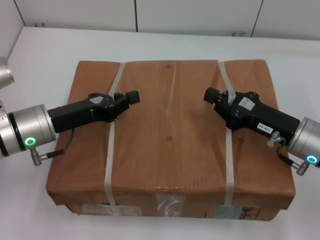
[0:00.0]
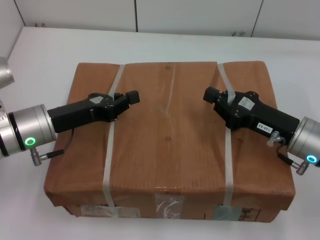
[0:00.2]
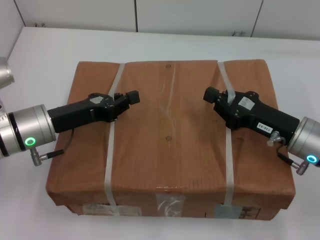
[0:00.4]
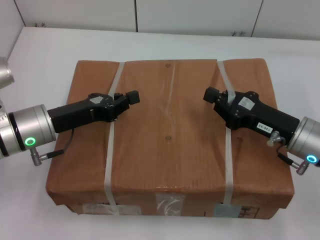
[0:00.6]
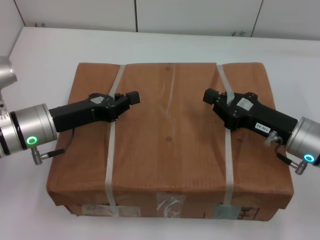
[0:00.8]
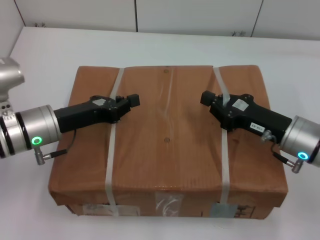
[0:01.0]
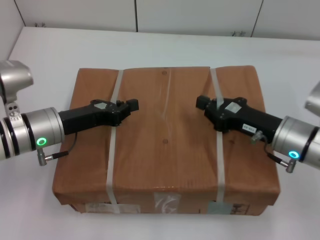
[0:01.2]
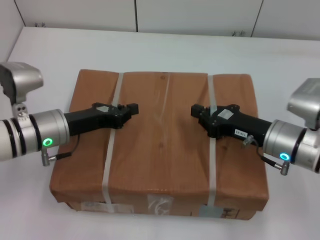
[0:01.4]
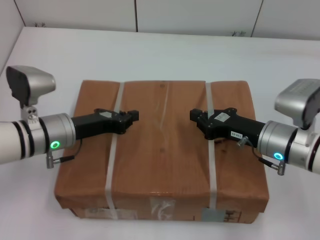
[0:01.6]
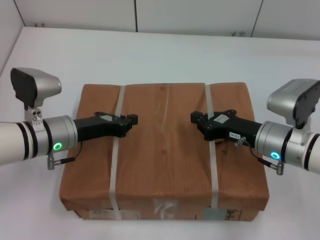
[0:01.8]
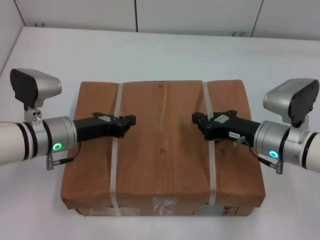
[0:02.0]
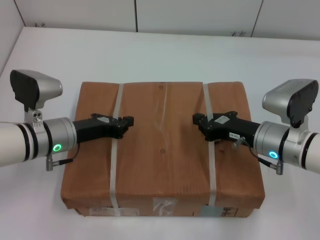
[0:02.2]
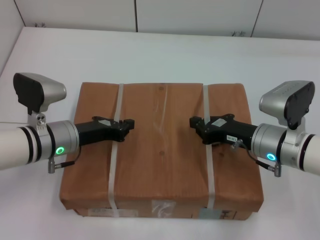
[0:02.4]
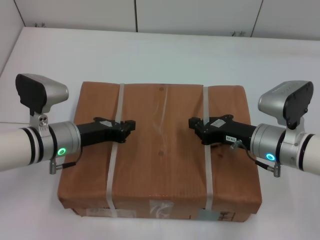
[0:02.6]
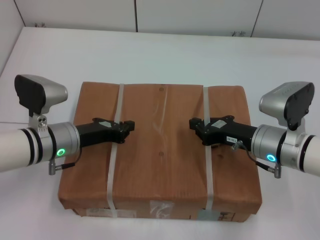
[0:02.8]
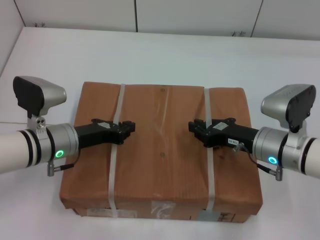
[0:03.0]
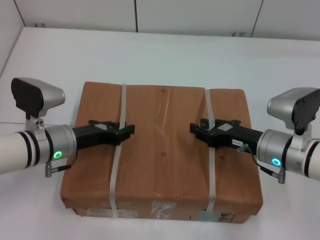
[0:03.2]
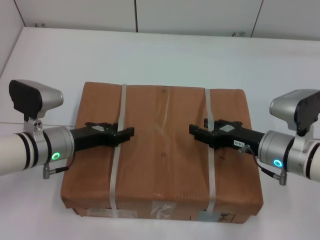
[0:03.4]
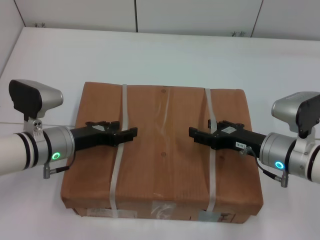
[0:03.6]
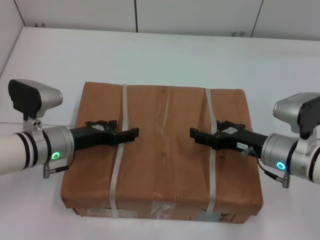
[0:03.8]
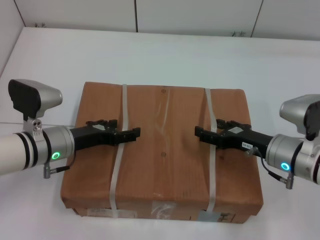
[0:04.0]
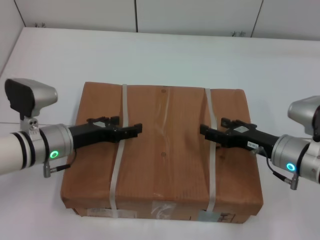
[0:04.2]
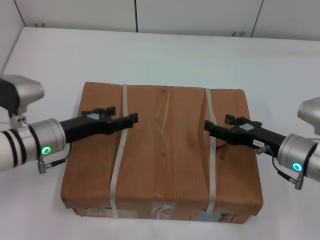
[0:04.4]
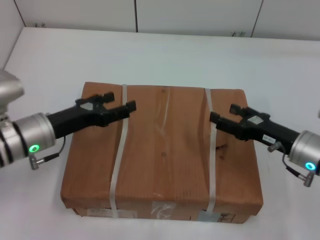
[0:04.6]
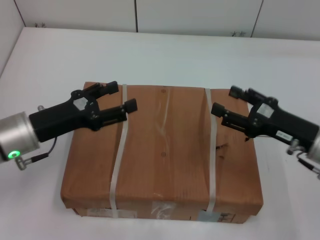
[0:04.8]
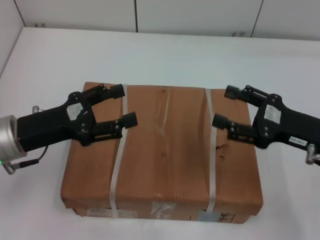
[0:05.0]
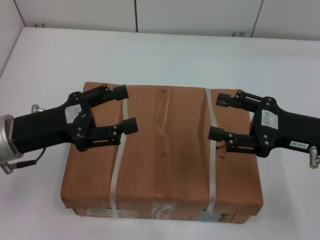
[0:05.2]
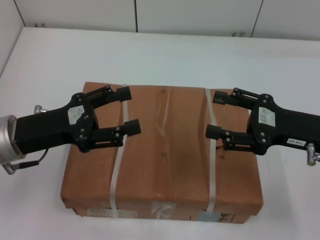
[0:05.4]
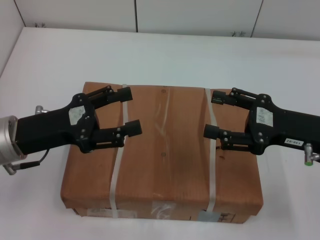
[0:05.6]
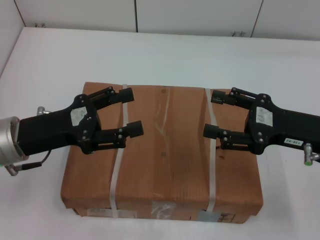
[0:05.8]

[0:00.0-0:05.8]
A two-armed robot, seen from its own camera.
Task of the whole recording: place the box on the table with both arms.
Step, 0:00.0 to 0:03.0: Place the box on the table with left gripper.
Step, 0:00.0 to 0:03.0: Place the box on the table with right gripper.
Step, 0:03.2 to 0:03.8: Loosen the box on the table with left gripper.
Step, 0:03.2 to 0:03.8: Loosen the box on the table with right gripper.
0:02.8 to 0:04.4: The right gripper opens its fingers; the left gripper opens up.
0:04.4 to 0:05.8: The left gripper moves upward and backward, approximately 10 cm; the right gripper moves upward, about 10 cm.
